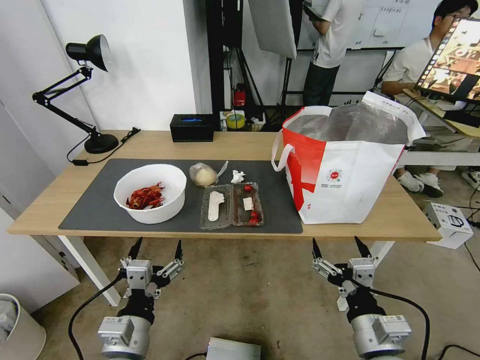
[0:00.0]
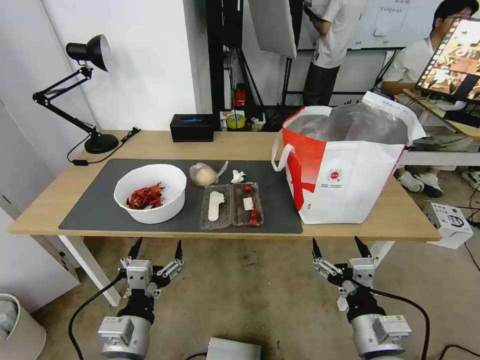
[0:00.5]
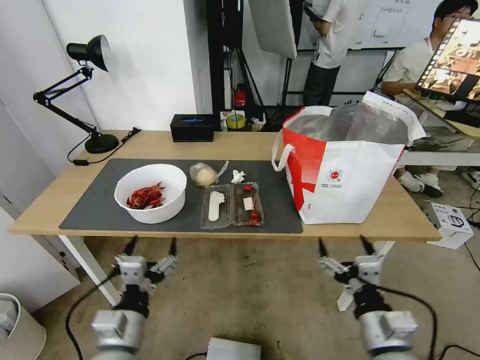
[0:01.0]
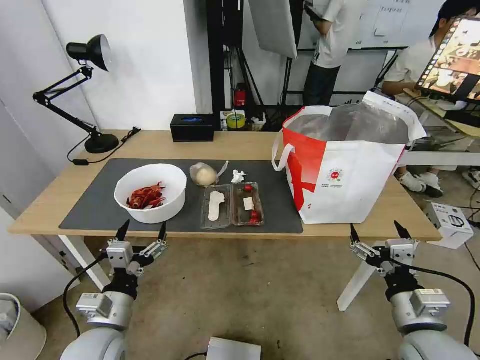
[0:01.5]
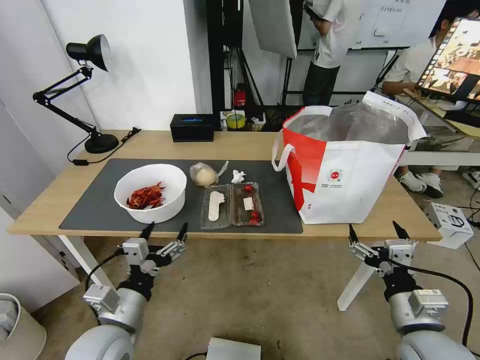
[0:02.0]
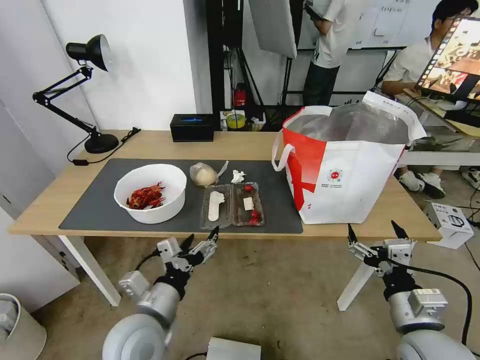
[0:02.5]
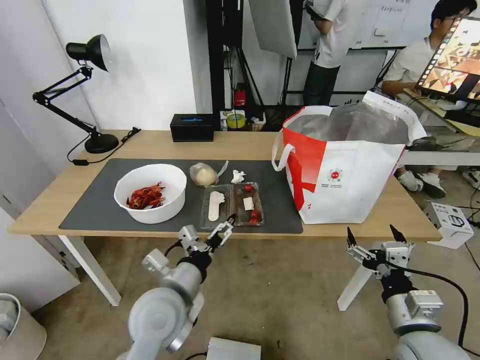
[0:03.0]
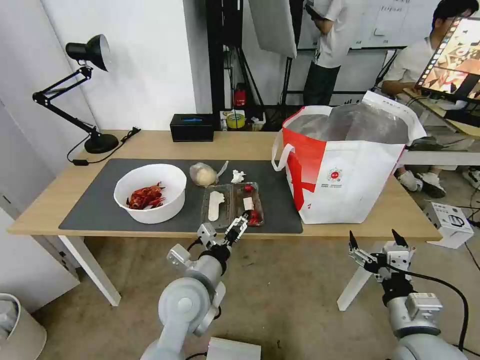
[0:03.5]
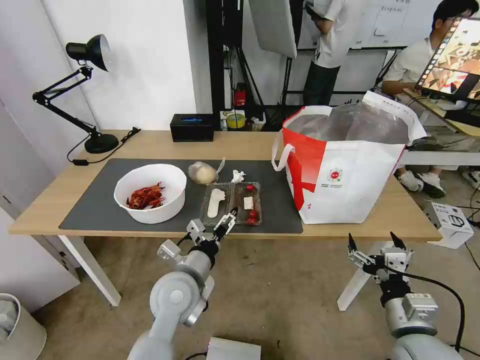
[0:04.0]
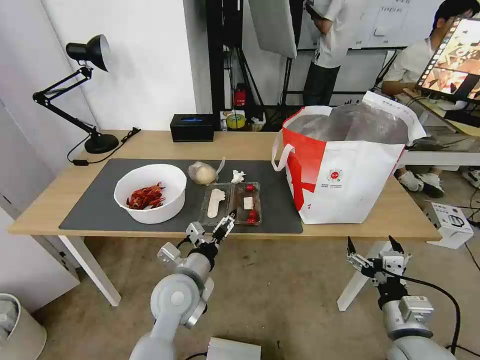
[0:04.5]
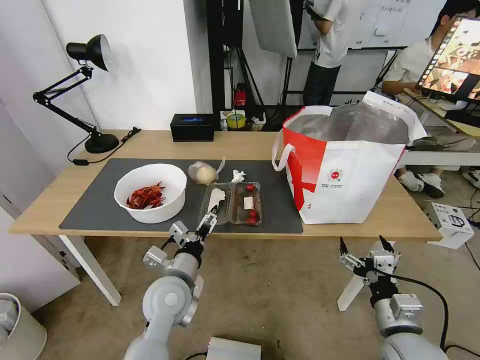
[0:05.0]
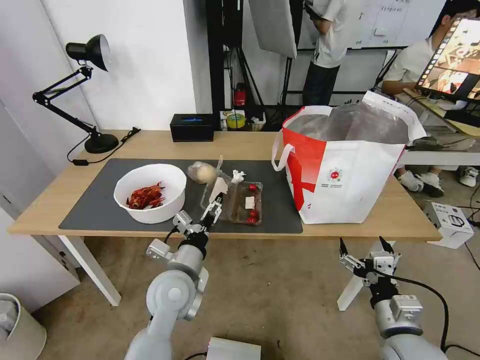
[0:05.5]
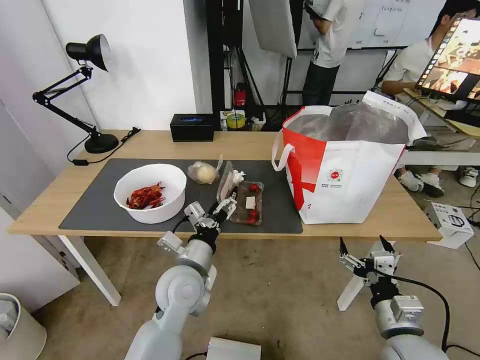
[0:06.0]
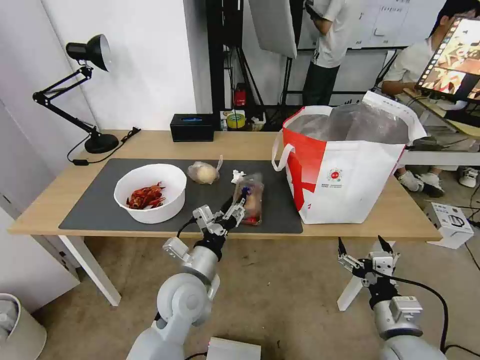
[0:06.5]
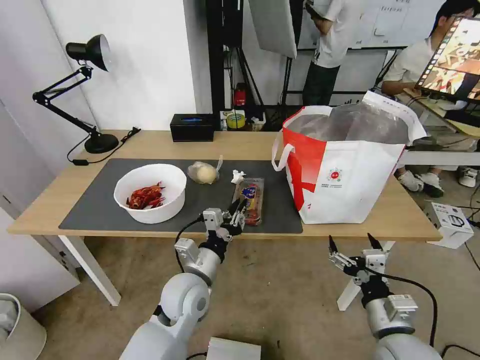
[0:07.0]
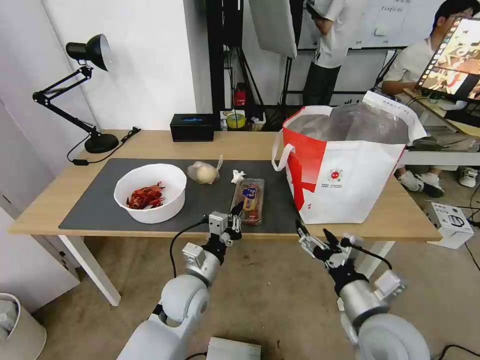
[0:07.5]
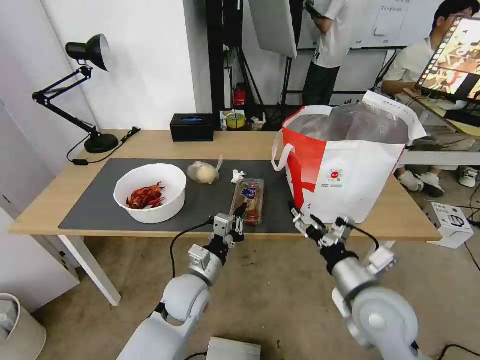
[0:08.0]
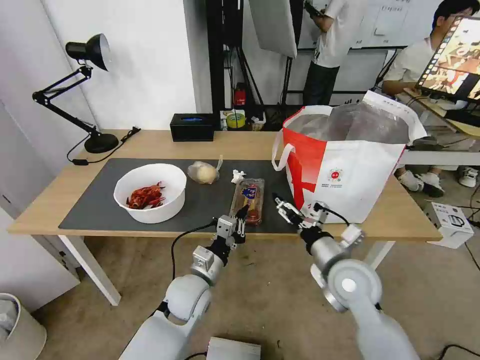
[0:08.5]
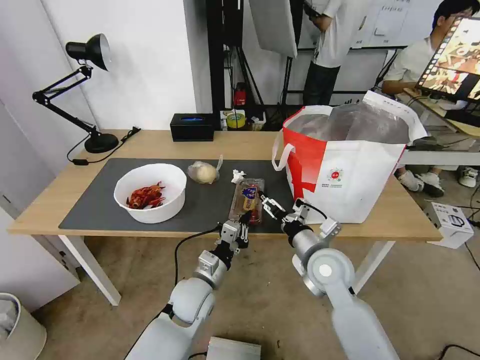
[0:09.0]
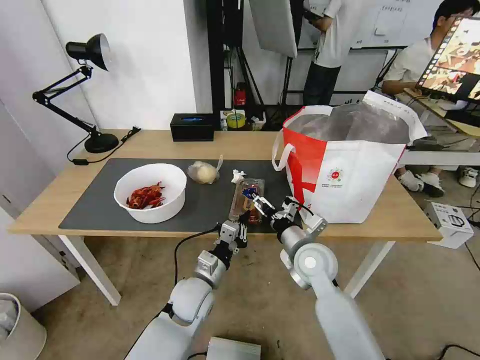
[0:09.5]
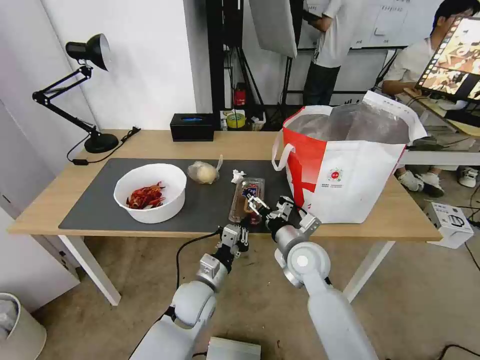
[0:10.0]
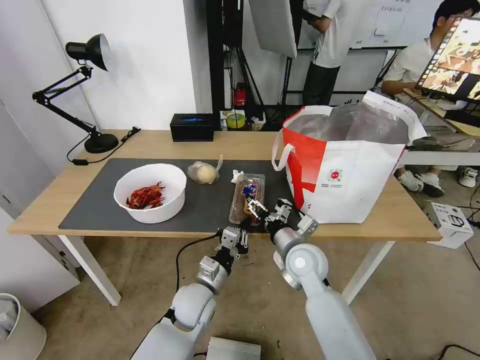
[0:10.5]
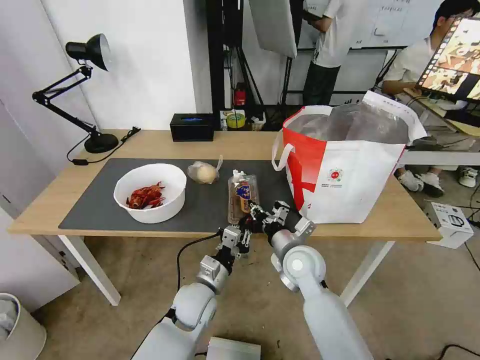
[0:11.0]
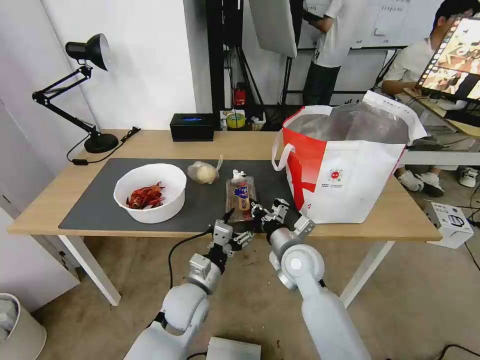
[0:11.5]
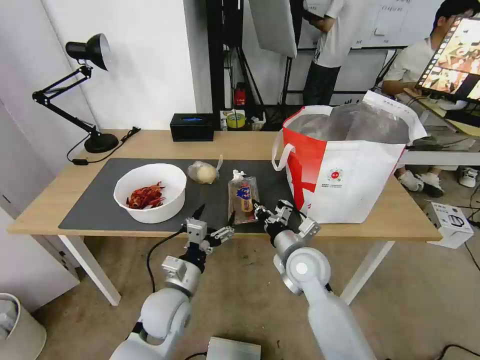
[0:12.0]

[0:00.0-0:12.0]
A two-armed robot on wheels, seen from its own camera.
Task of the whole recording: Pick up the trash from the table and place it into the takeout bag.
0:02.0 to 0:04.0: The left gripper goes roughly 15 cm to the right and forward.
0:04.0 to 0:06.0: The grippers stay close to where they were, moving slightly.
0:06.0 to 0:08.0: The right gripper is displaced upward, to the left and forward by some 10 cm. Meanwhile the left gripper shifts approximately 5 cm downward, and closes its fingers.
0:08.0 to 0:10.0: The right gripper heads forward, to the left and downward, covering approximately 15 cm.
0:10.0 to 0:12.0: The left gripper ends up about 5 cm from where it was, and opens its fingers. The right gripper closes.

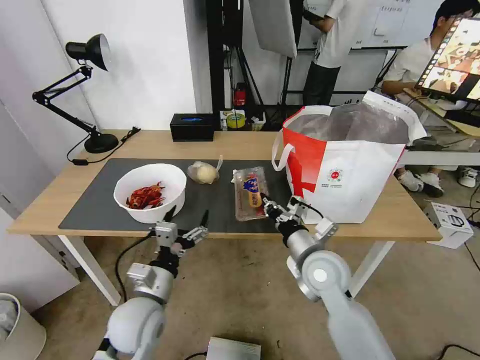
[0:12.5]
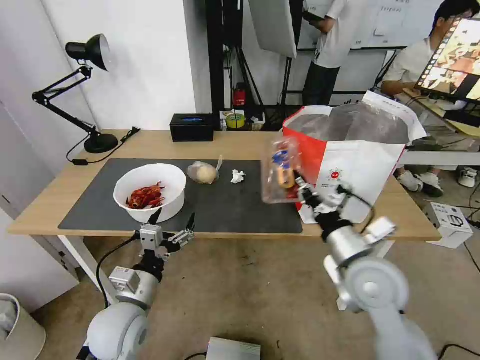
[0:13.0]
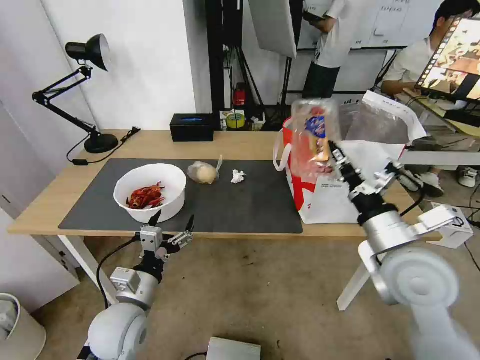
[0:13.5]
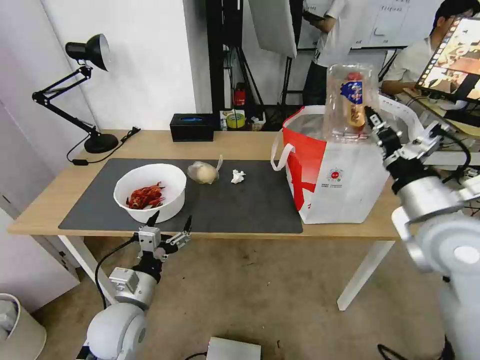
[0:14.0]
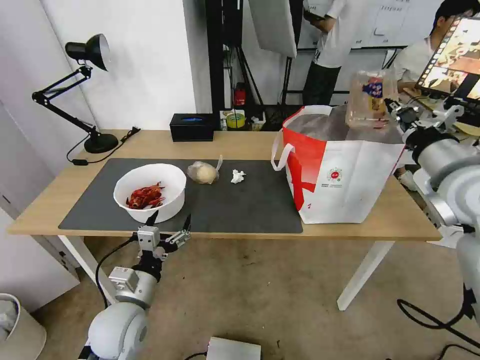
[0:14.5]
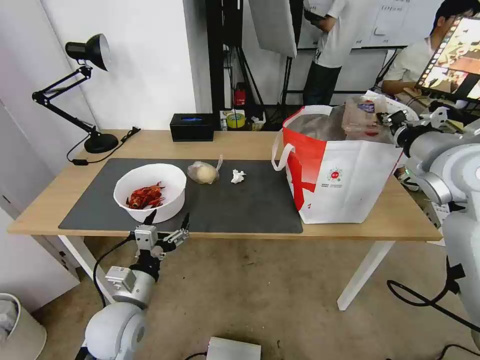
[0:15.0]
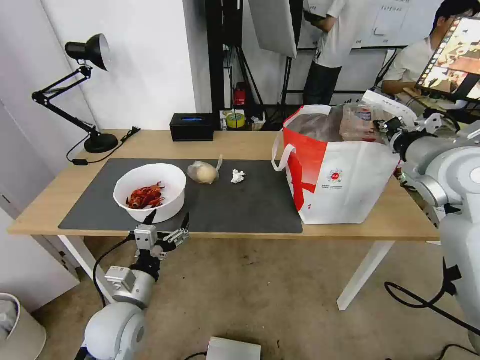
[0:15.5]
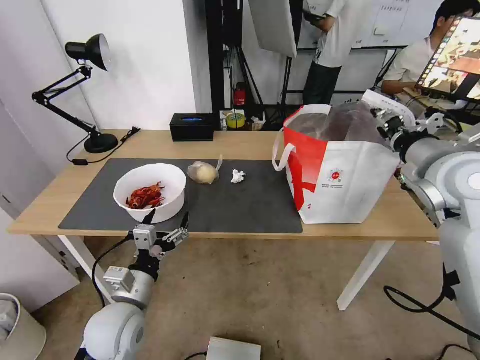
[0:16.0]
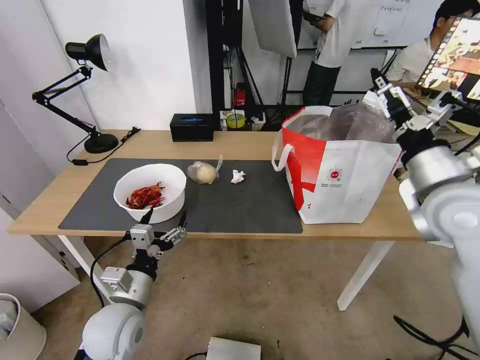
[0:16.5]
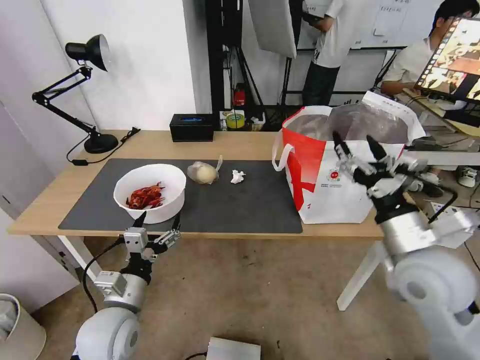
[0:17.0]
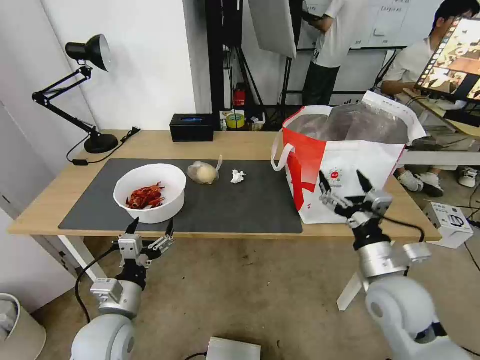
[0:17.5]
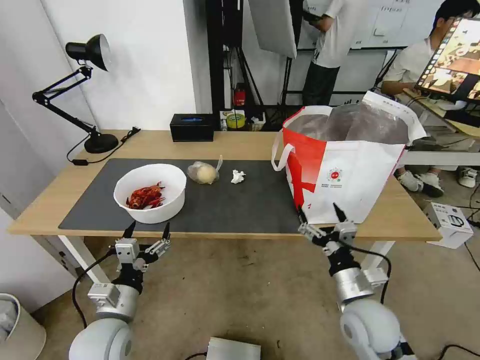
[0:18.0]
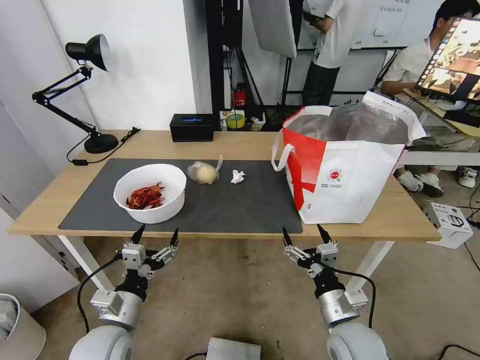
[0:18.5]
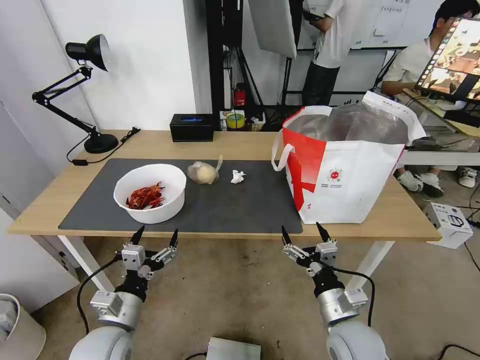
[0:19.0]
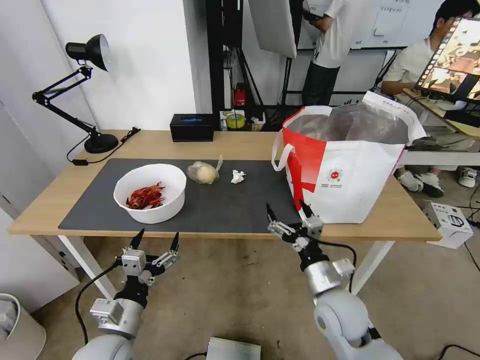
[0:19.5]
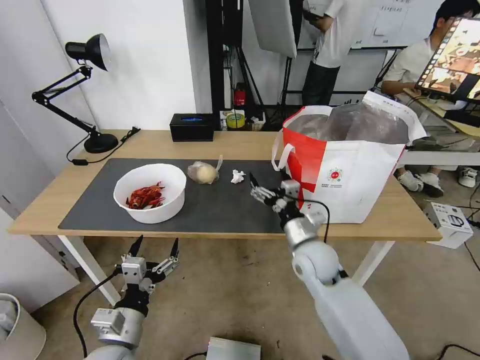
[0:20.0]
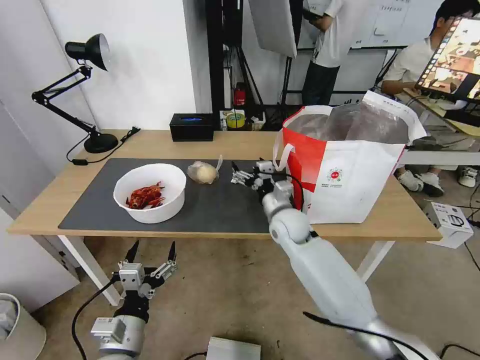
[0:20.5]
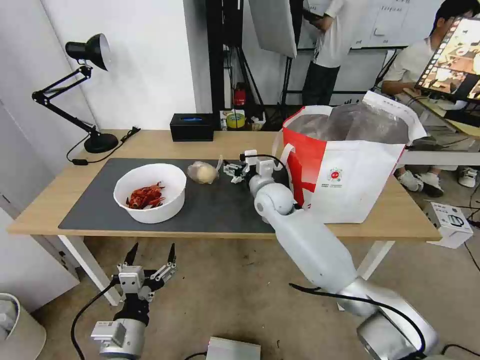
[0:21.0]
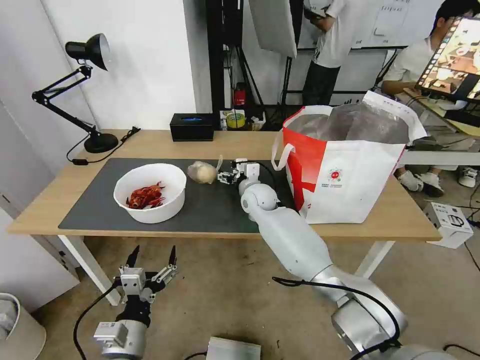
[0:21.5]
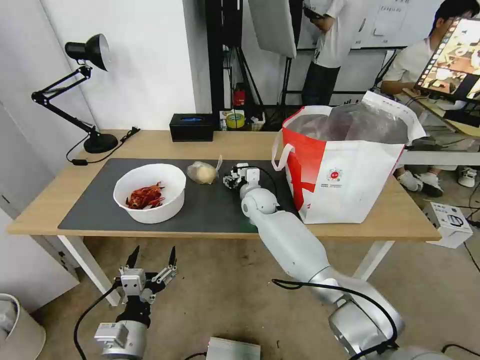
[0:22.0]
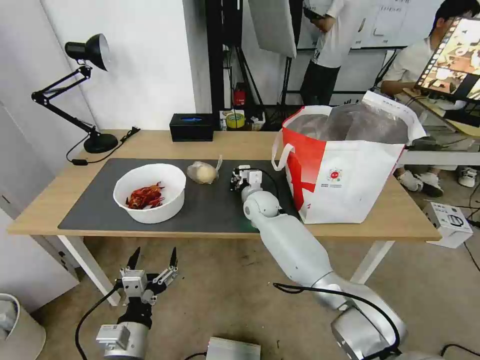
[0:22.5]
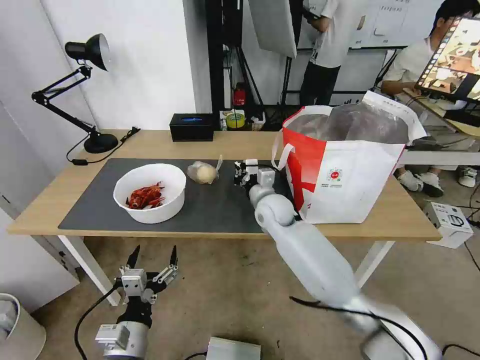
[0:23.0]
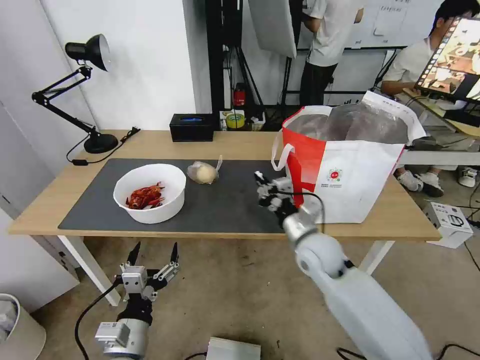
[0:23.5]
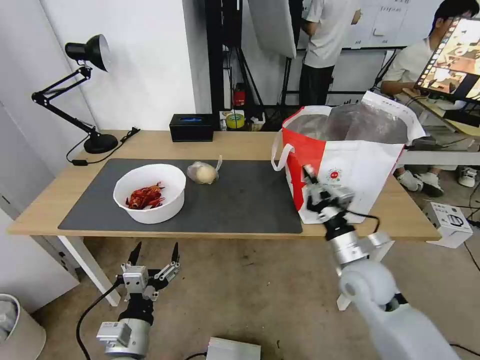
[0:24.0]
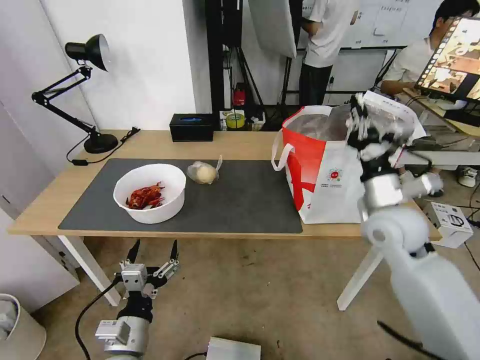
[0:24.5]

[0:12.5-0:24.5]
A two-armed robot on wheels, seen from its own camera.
Task of the whole recording: Pick up the trash from the table and place it into the takeout bag.
0:12.5 to 0:14.5: The right gripper moves upward and to the right, roughly 25 cm.
0:14.5 to 0:16.5: The right gripper opens its fingers.
0:16.5 to 0:18.5: The right gripper shifts roughly 30 cm downward, backward and to the left.
0:18.5 to 0:20.5: The right gripper moves forward, roughly 25 cm, while the left gripper shifts by approximately 5 cm.
0:20.5 to 0:22.5: The right gripper heads forward and to the left, covering about 10 cm, and closes up.
0:22.5 to 0:24.5: The right gripper is displaced to the right, backward and upward by some 30 cm.

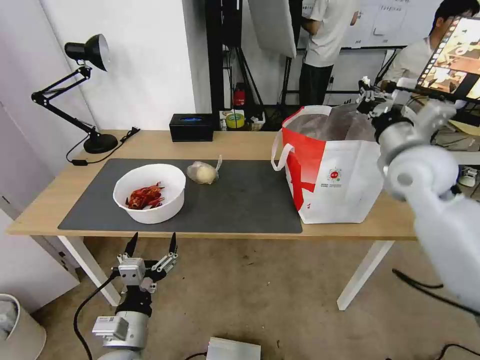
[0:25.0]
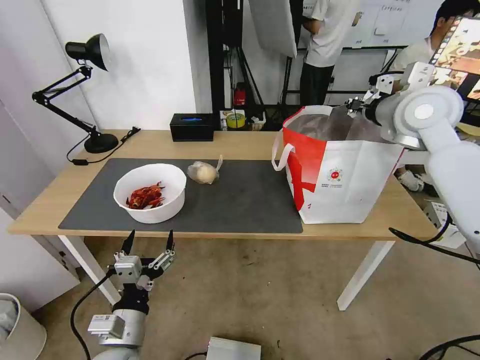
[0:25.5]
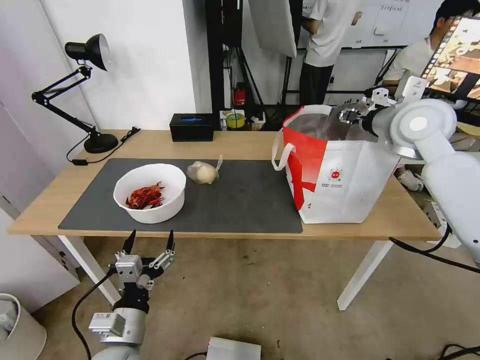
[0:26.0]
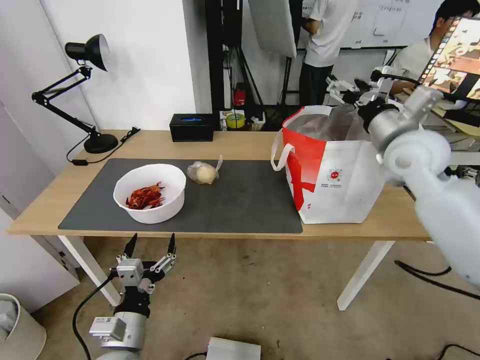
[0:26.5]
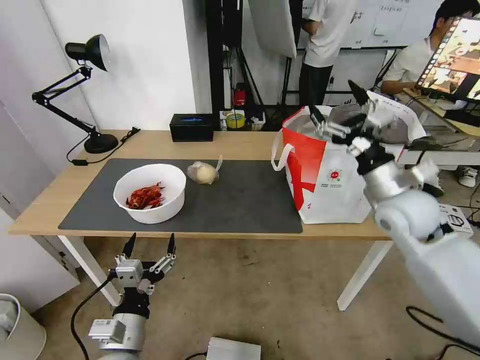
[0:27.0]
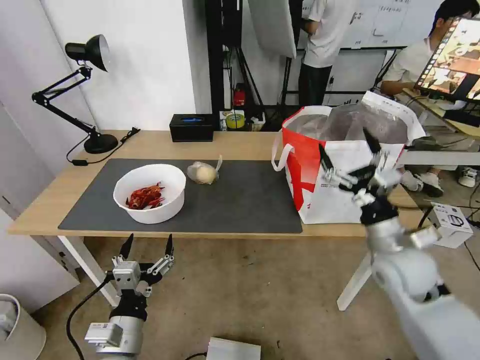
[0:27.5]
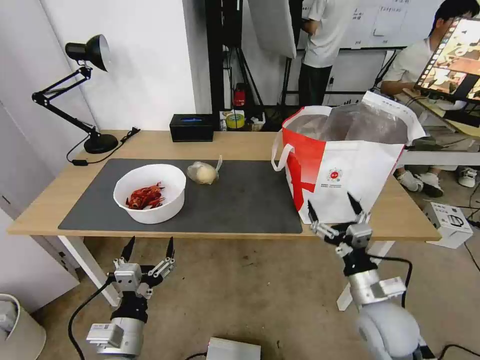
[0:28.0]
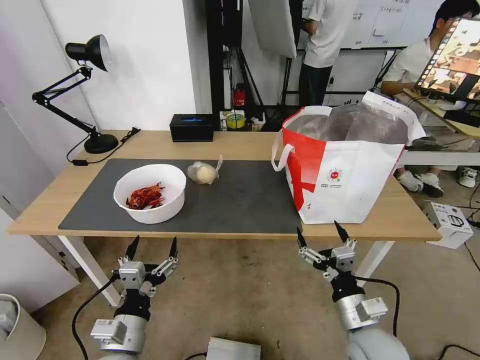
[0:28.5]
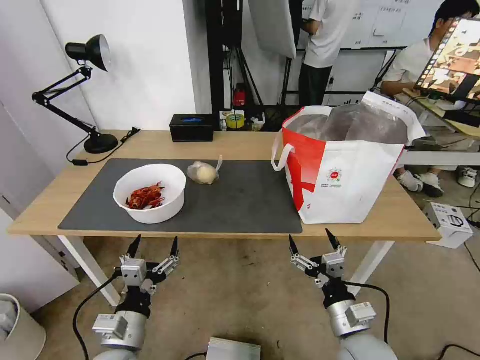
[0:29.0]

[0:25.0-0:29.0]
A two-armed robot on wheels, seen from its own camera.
Task of the whole recording: Pick up the trash from the table and place it into the takeout bag.
0:25.0 to 0:27.0: The right gripper heads downward, covering roughly 5 cm, and opens up.
0:27.0 to 0:29.0: The right gripper is displaced backward and downward by approximately 30 cm.
